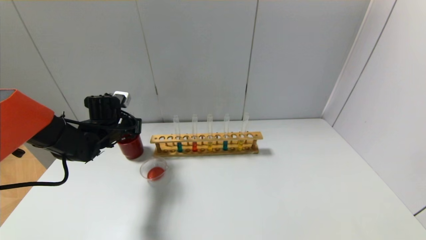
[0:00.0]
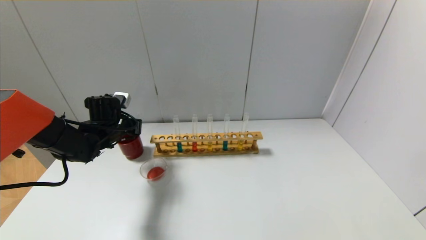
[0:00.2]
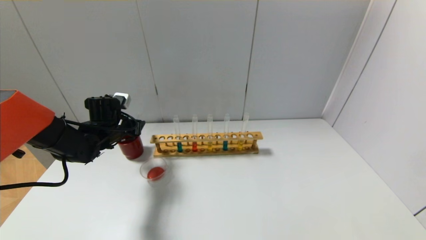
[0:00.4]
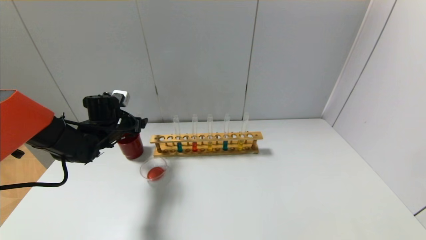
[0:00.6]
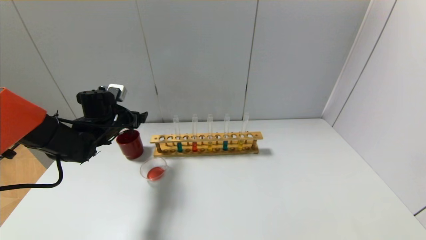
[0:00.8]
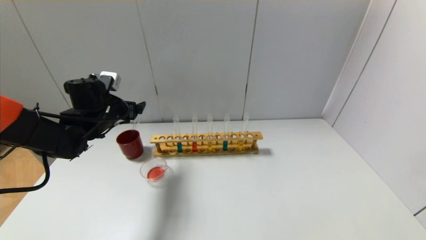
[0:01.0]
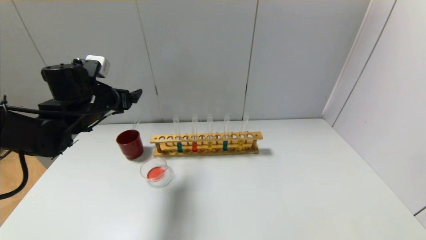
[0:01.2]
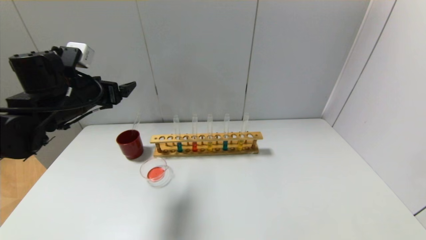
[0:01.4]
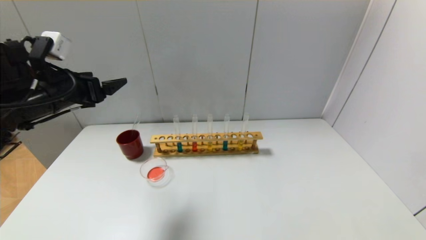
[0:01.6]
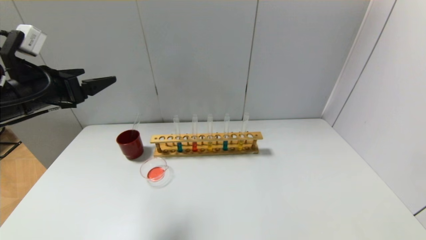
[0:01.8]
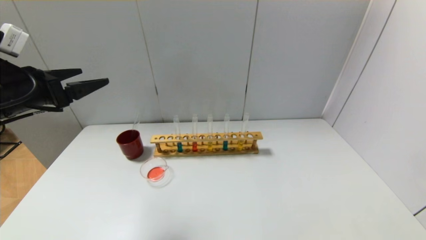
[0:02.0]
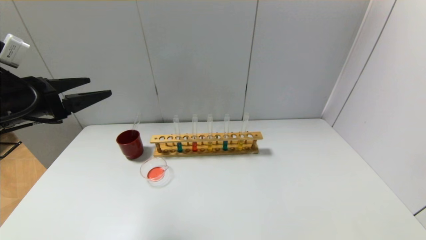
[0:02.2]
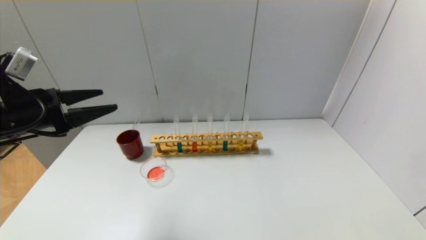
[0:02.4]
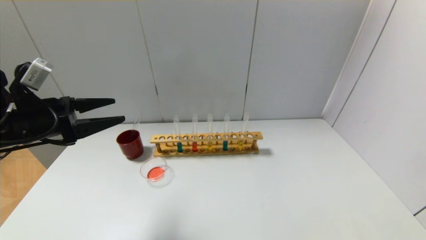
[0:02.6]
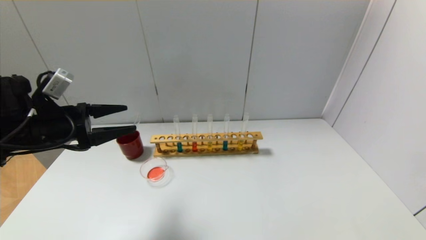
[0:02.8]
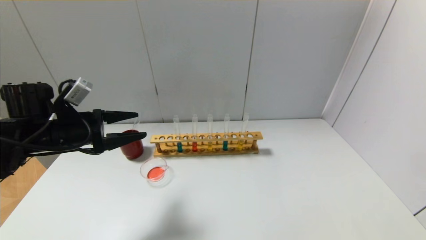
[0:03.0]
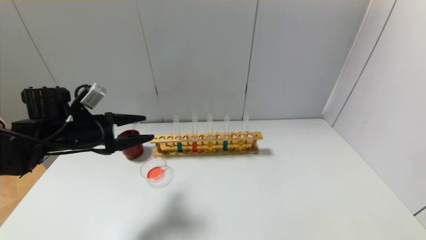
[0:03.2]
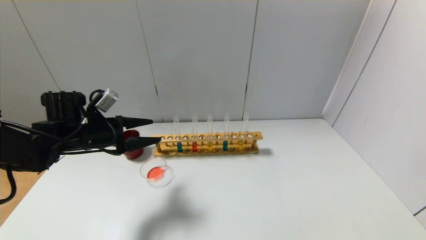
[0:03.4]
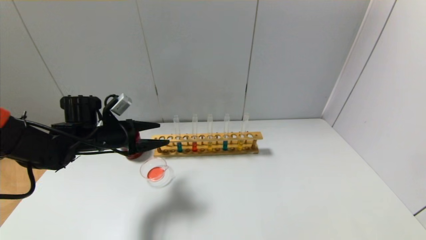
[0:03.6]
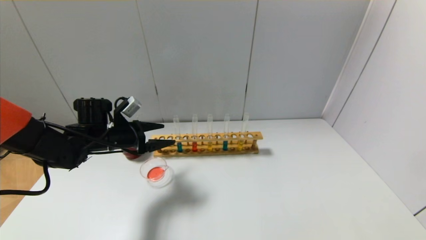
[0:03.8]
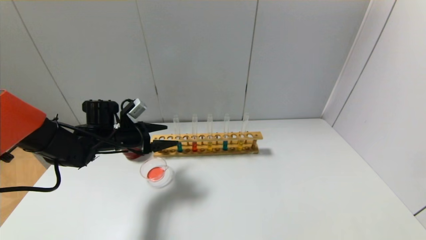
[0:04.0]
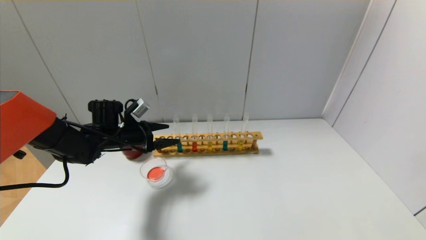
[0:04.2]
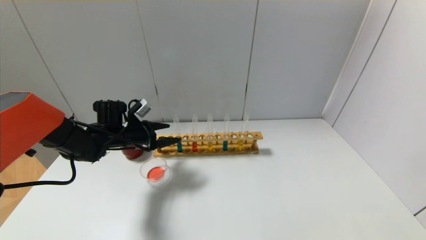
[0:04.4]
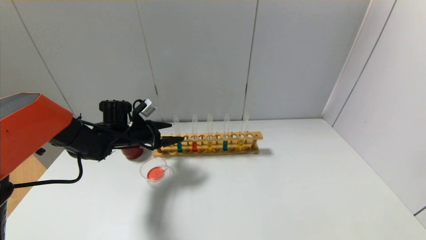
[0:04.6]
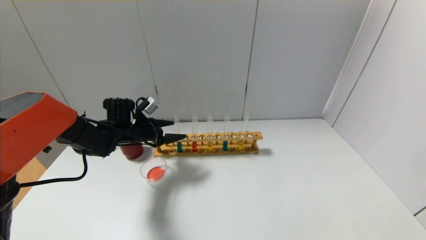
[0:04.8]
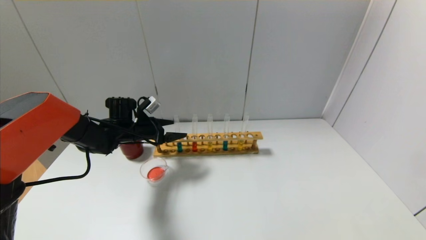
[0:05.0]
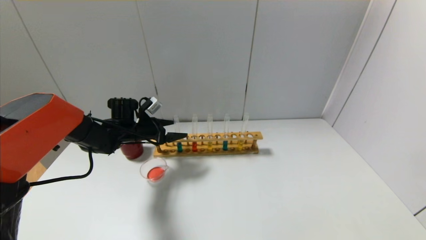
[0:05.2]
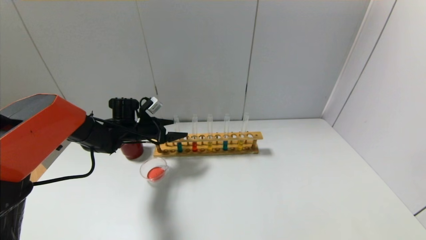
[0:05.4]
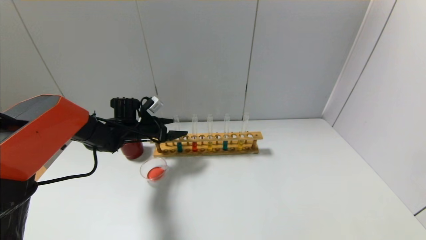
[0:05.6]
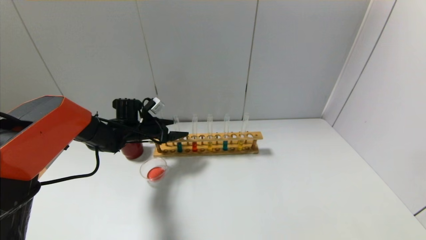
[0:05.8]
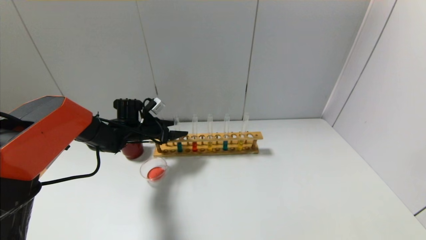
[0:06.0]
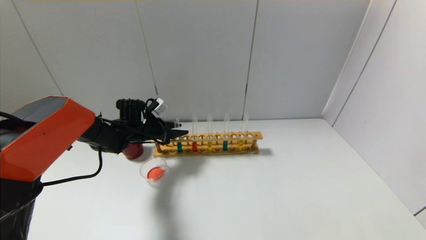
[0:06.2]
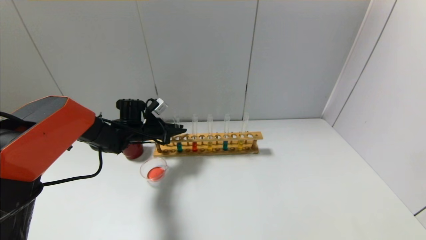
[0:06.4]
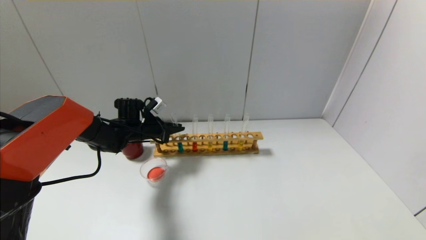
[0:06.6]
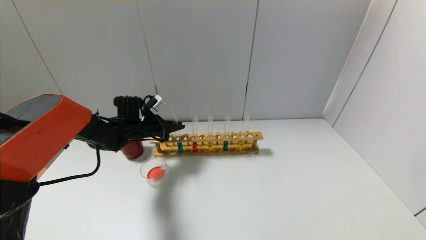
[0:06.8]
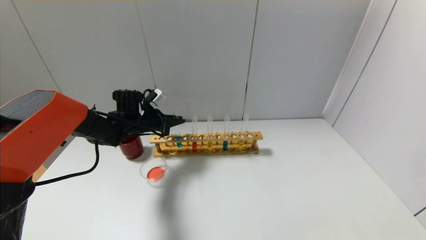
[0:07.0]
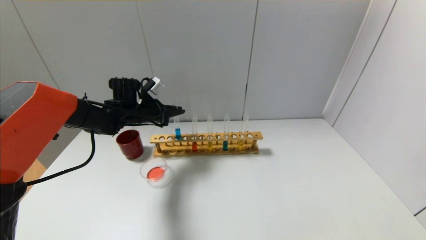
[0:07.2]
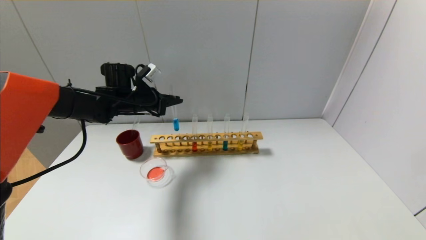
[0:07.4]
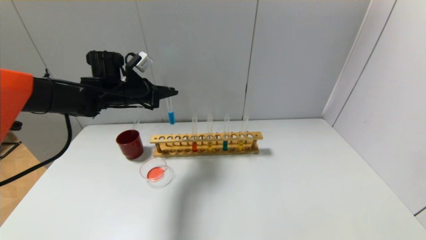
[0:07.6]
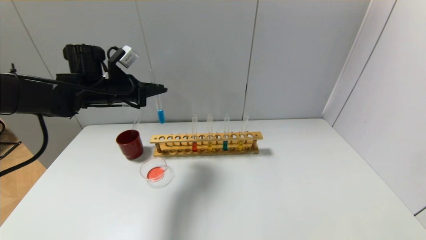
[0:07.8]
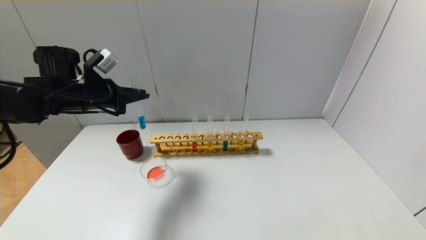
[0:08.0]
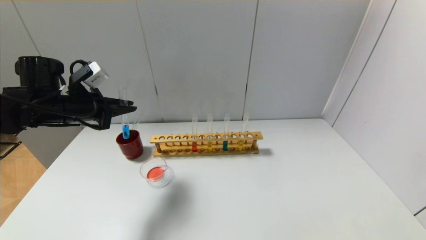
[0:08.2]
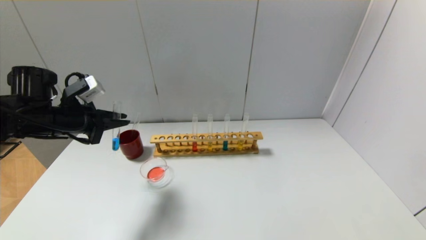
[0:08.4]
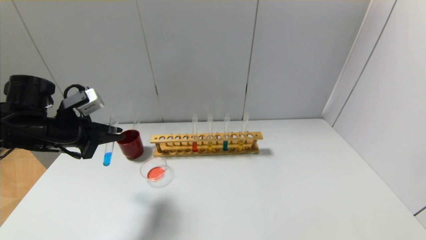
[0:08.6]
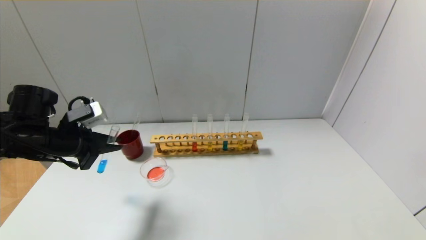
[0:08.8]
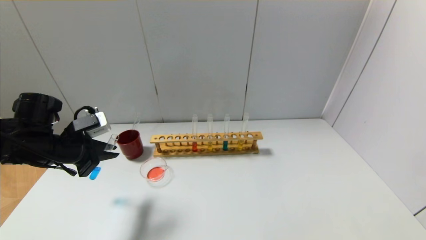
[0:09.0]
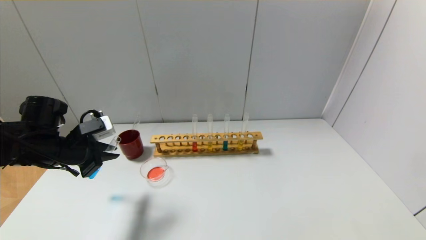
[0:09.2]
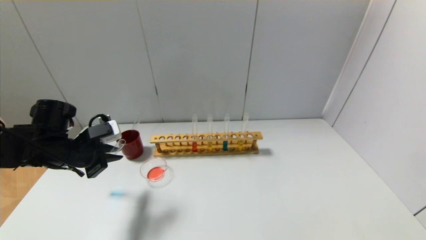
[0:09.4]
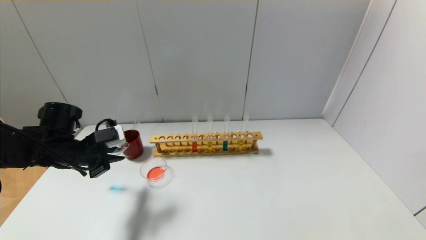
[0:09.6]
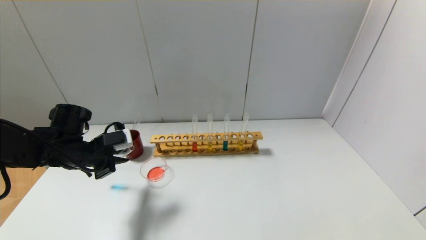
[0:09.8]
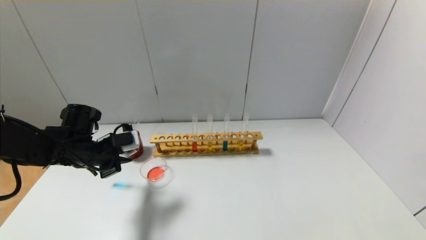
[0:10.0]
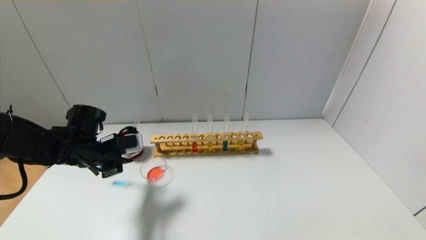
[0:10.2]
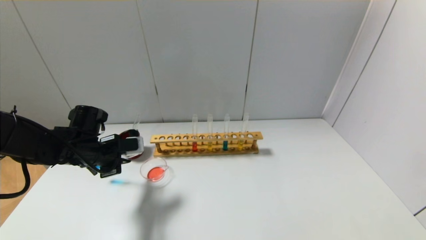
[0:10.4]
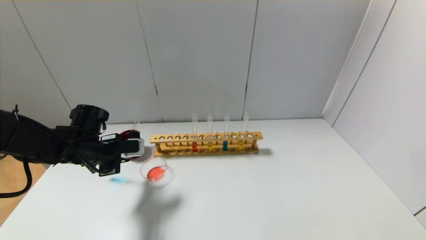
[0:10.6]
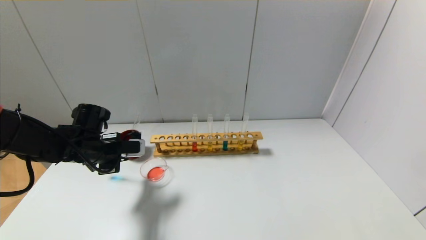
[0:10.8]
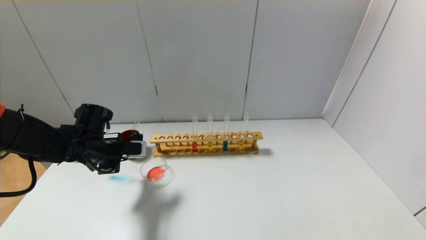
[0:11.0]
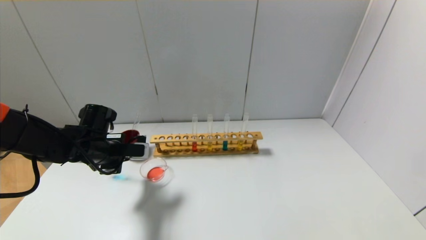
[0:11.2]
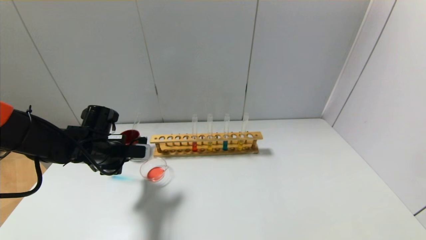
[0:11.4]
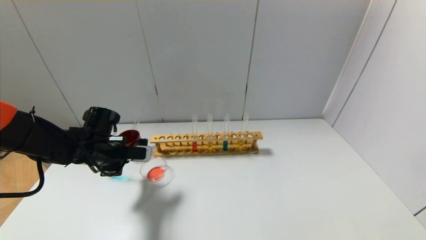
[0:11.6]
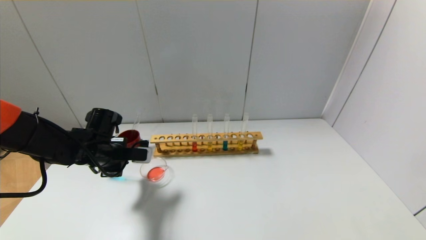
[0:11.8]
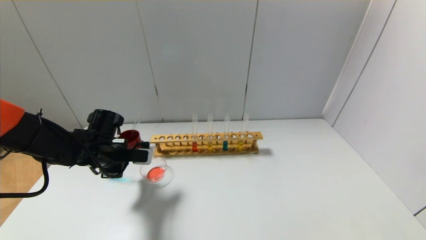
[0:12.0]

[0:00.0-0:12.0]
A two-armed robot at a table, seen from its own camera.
Step, 0:00.4 to 0:06.4: Grasp the blue reagent with the left gripper.
0:00.0 to 0:01.6: The left gripper shifts approximately 20 cm upward and backward, and opens its fingers.
0:01.6 to 0:03.0: The left gripper moves downward, approximately 10 cm.
0:03.0 to 0:04.4: The left gripper goes approximately 15 cm forward, downward and to the right.
0:04.4 to 0:06.0: The left gripper moves approximately 5 cm.
0:06.0 to 0:07.6: The left gripper goes approximately 15 cm upward, and closes up.
0:07.6 to 0:09.0: The left gripper moves backward, to the left and downward, about 15 cm.
0:09.0 to 0:10.4: The left gripper moves roughly 10 cm.
0:10.4 to 0:12.0: There are only small adjustments of the grippers.

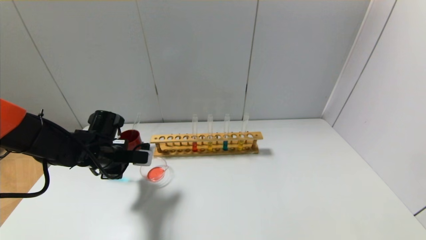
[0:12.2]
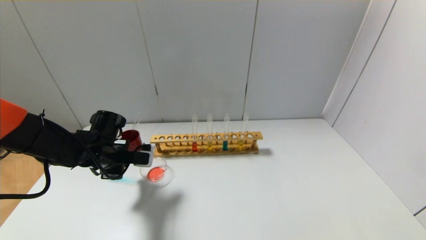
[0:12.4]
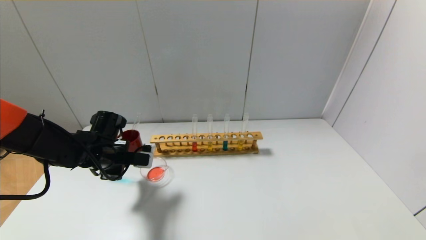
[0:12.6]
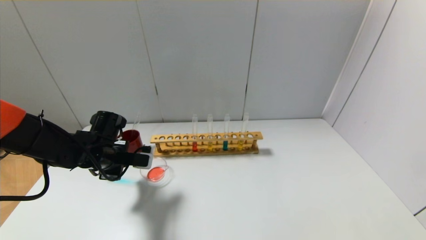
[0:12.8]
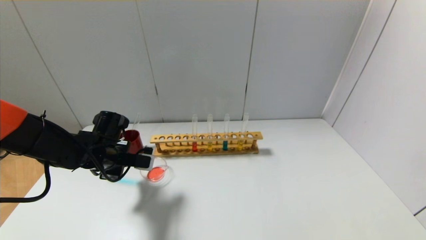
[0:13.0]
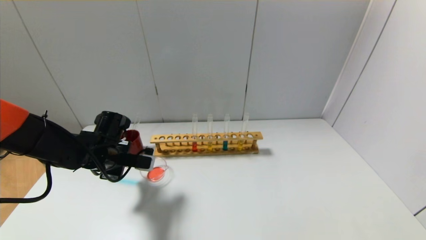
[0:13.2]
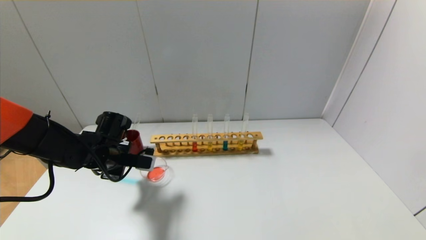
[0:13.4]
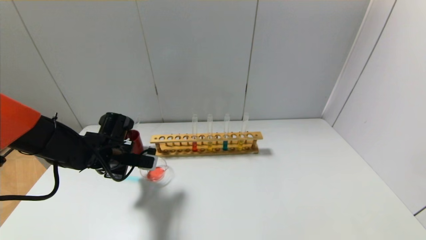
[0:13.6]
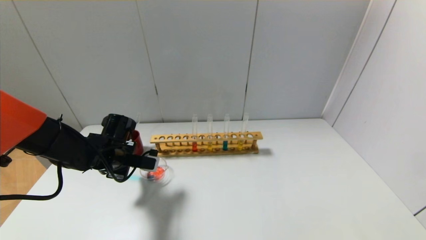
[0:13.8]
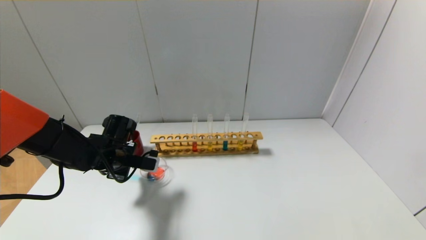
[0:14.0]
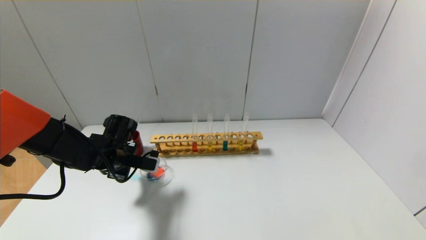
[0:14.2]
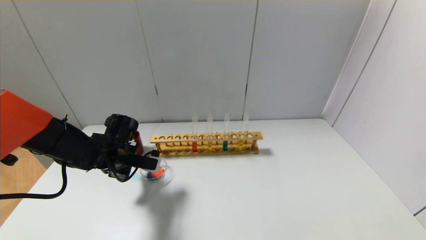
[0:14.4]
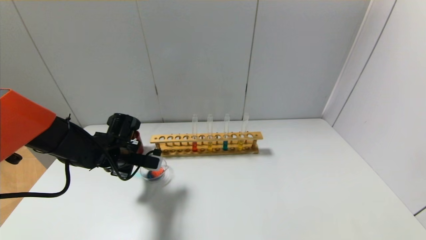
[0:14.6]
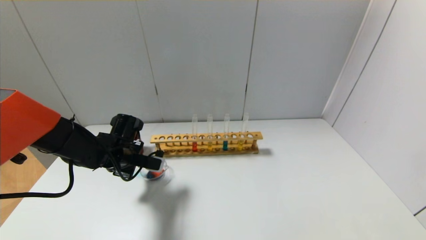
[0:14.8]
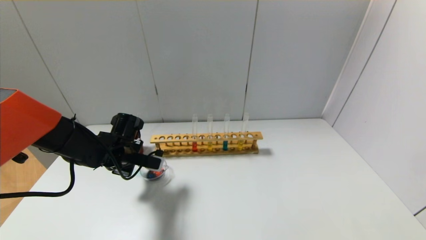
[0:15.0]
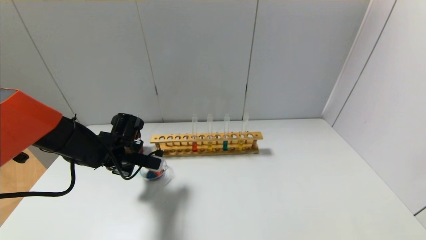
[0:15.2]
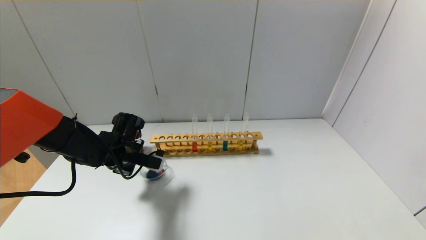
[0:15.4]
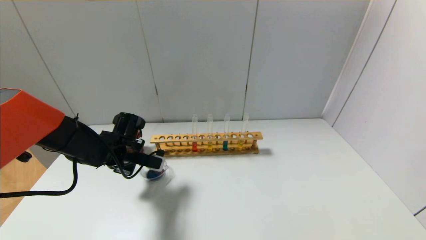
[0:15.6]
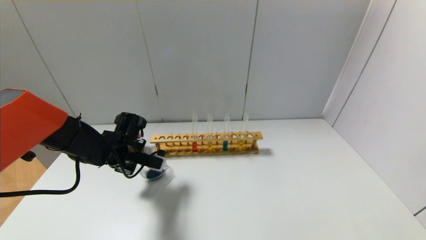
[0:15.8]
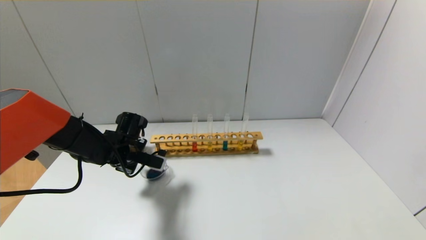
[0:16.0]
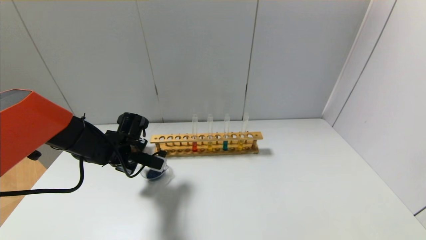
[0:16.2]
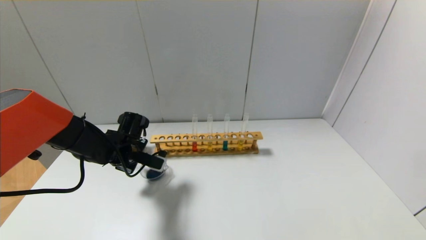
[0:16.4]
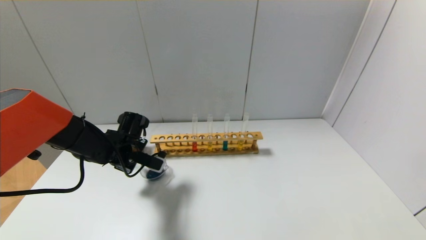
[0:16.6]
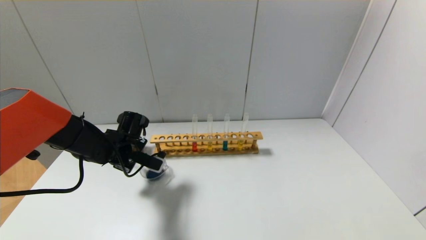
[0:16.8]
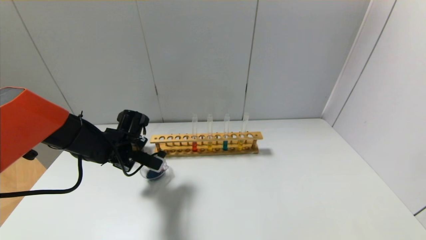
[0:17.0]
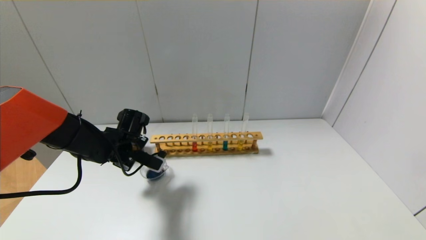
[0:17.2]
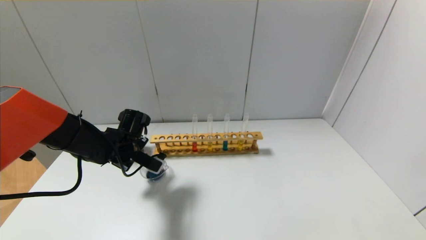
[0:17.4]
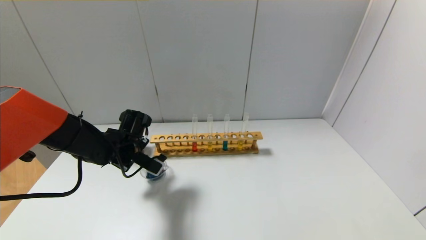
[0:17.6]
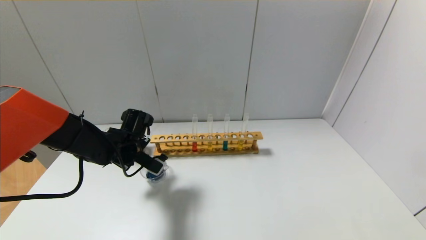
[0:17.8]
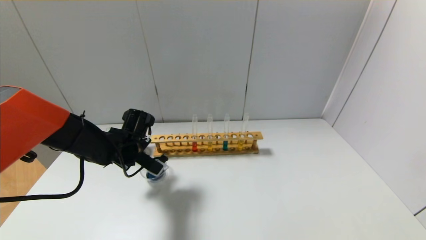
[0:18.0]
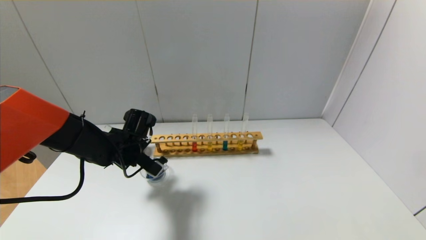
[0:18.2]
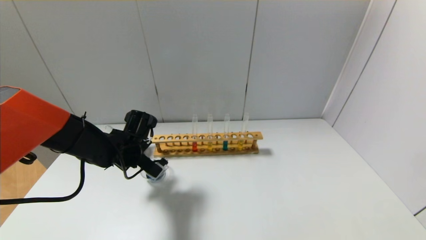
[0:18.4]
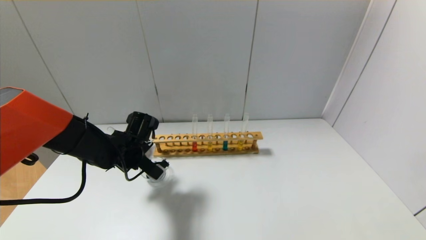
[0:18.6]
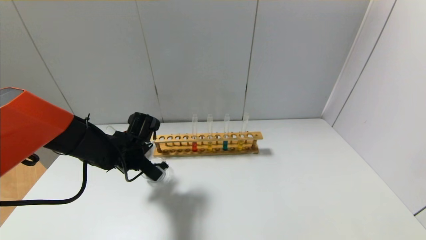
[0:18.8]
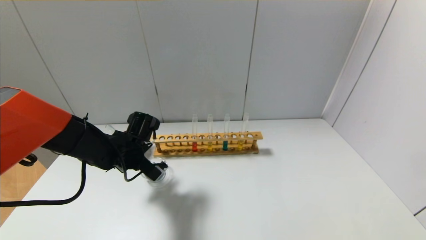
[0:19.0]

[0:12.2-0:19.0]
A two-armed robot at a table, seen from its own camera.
0:12.2 to 0:16.2: The grippers make only small movements.
0:16.2 to 0:17.6: There are only small adjustments of the grippers.
0:17.6 to 0:19.0: The grippers make only small movements.
